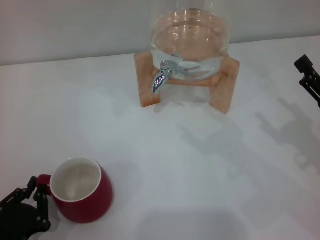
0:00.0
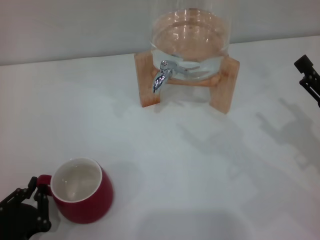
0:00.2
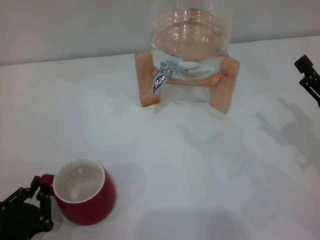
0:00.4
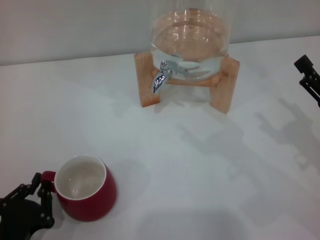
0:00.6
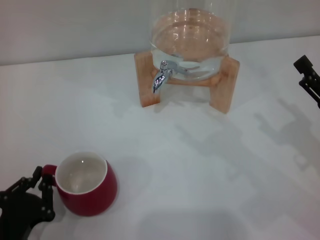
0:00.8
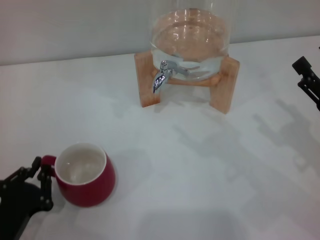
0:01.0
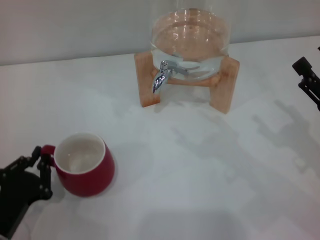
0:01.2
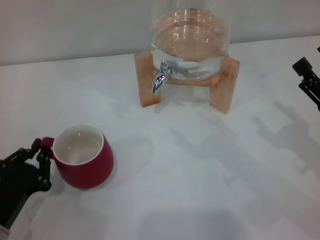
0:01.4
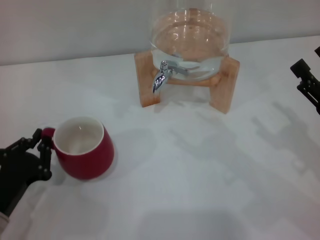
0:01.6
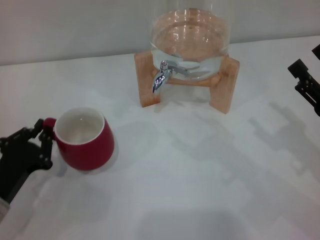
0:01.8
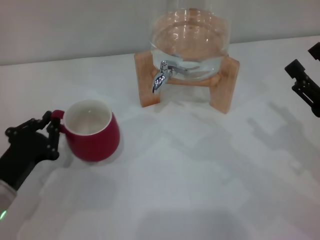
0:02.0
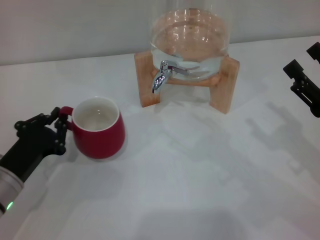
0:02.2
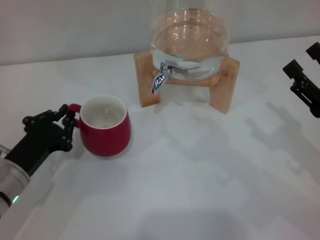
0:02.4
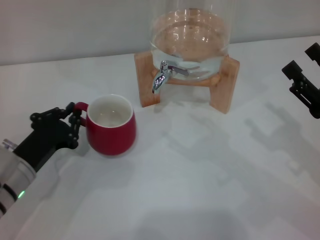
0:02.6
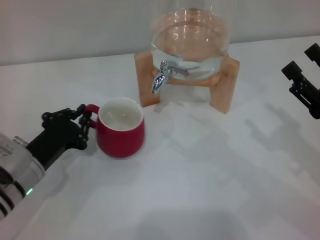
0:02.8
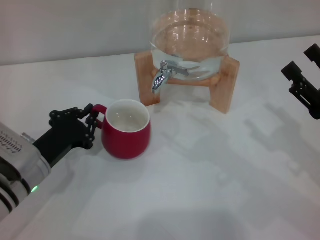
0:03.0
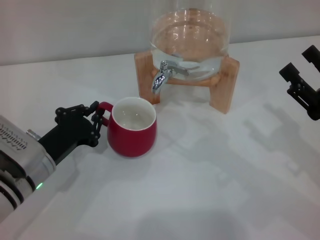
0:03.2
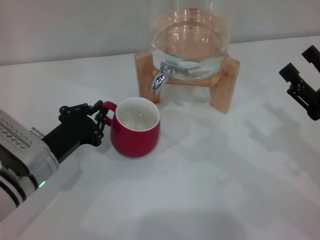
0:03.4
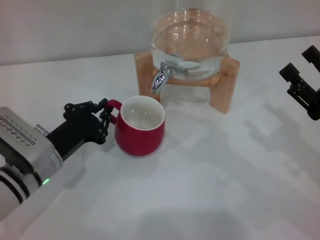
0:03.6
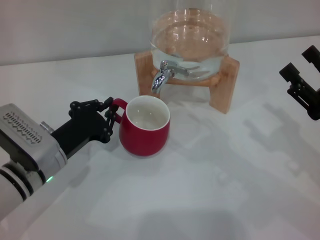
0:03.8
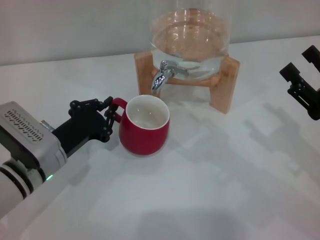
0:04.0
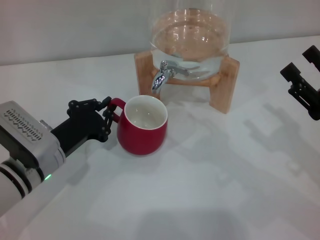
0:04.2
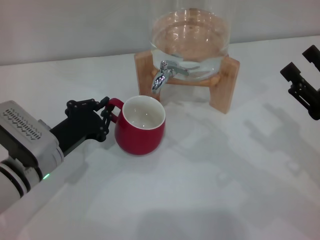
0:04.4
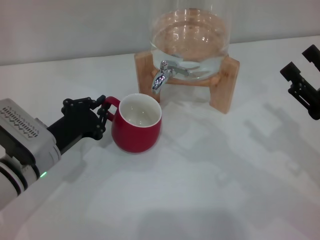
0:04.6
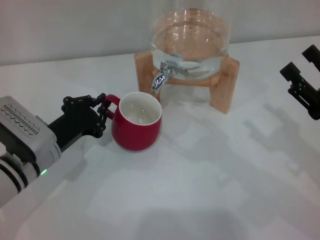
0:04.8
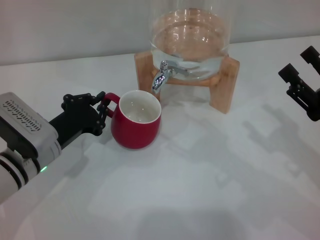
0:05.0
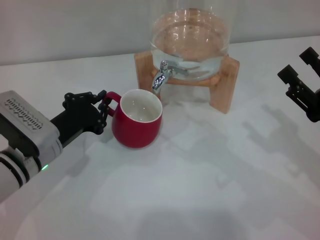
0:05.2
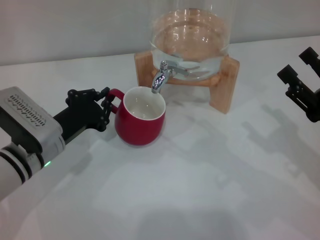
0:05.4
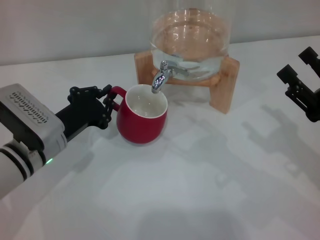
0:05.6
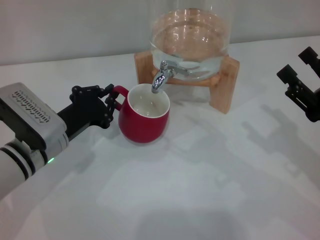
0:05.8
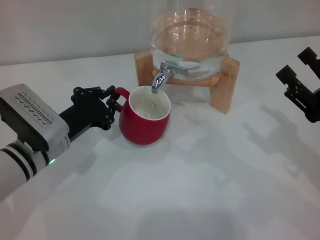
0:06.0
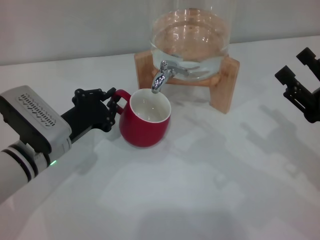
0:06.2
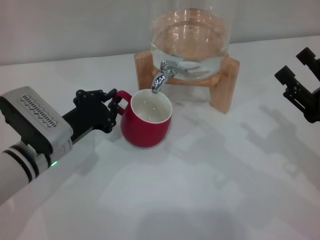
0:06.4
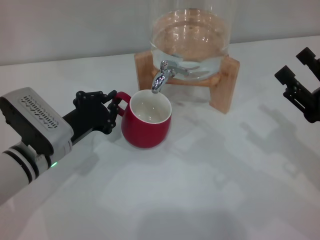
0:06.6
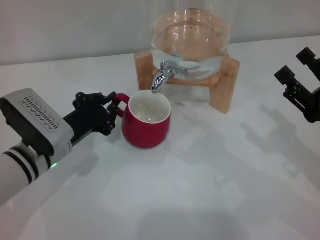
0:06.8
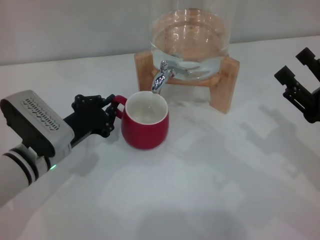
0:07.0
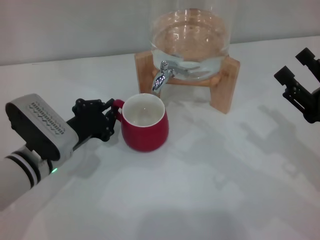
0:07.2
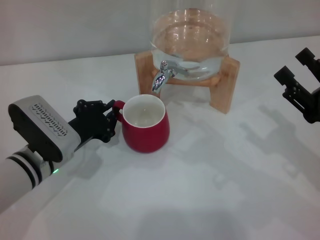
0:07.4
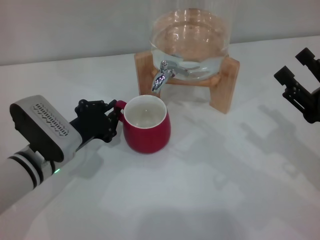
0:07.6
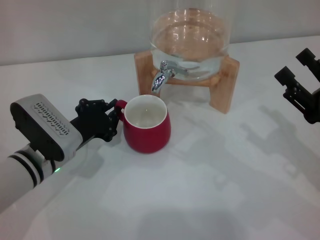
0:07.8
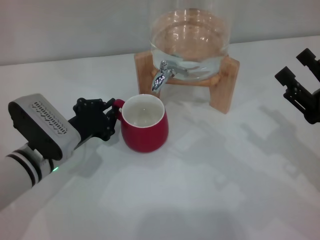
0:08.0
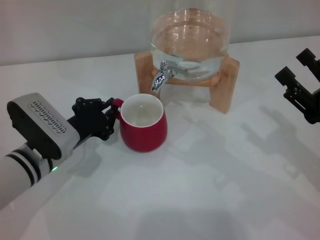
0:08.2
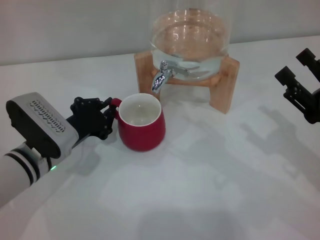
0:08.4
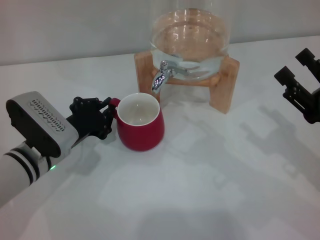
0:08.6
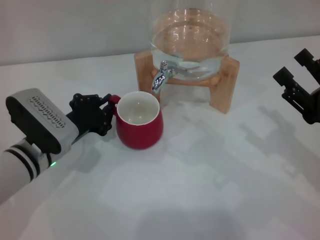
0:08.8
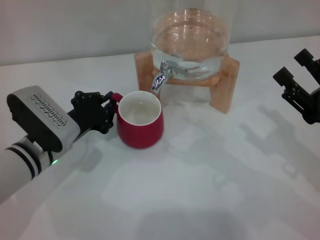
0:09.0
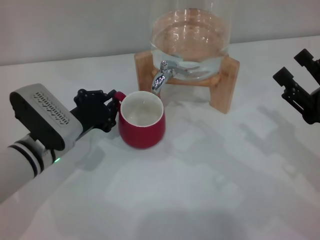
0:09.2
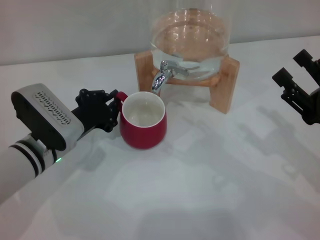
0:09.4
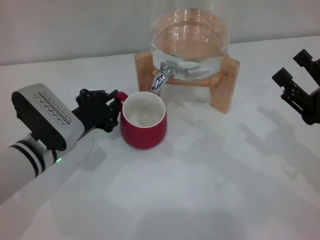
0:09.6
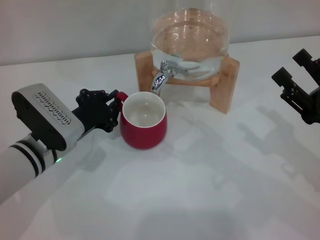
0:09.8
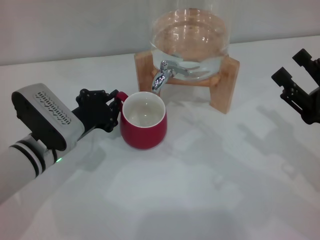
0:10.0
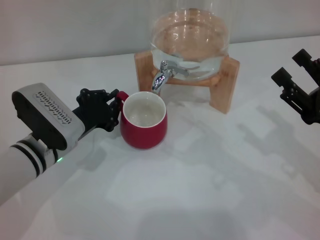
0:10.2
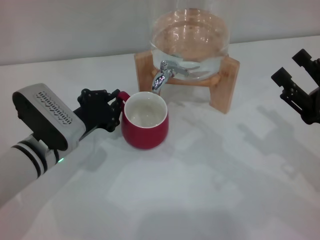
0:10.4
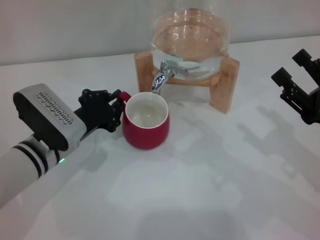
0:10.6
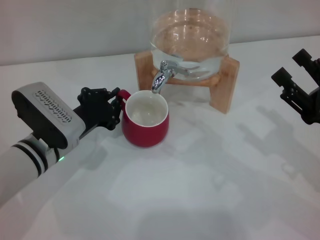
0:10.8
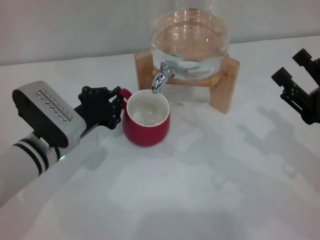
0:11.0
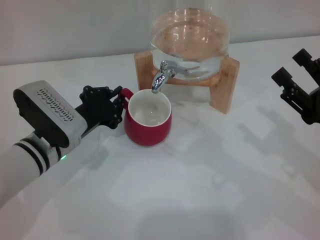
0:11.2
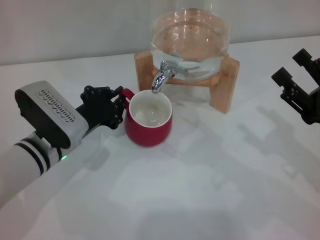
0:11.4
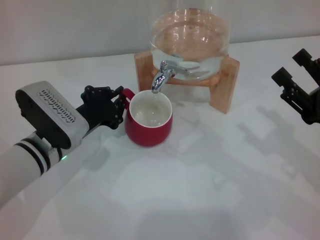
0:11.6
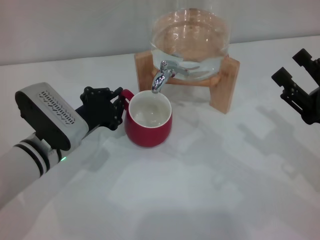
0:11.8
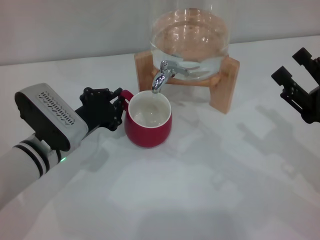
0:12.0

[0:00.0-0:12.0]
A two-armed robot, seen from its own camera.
Task of the whole recording: the left gripper pick up the red cup and place it horizontally under the faucet, the right gripper turn on the faucet to fill the cup, and then turn off the faucet.
0:00.0 to 0:01.6: The left gripper is displaced forward by about 10 cm.
0:01.6 to 0:03.0: The left gripper goes some 10 cm forward and to the right.
0:03.0 to 0:07.6: The grippers make only small movements.
0:07.6 to 0:09.0: The two grippers keep their place.
0:09.0 to 0:10.4: The two grippers keep their place.
0:10.4 to 0:12.0: Both grippers stay put.

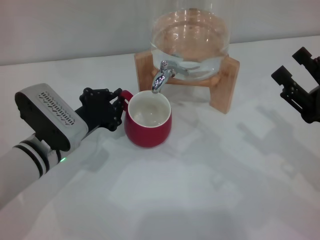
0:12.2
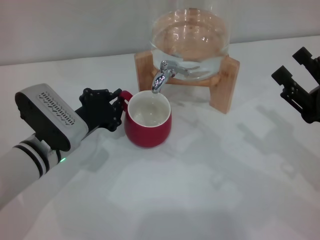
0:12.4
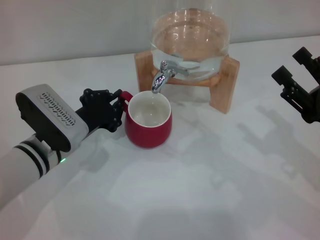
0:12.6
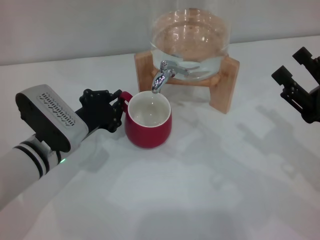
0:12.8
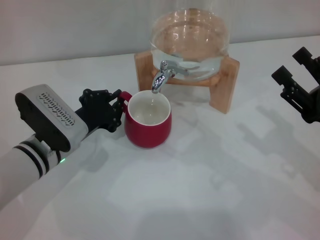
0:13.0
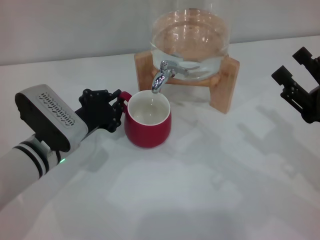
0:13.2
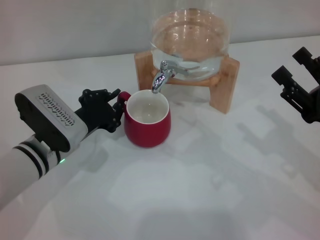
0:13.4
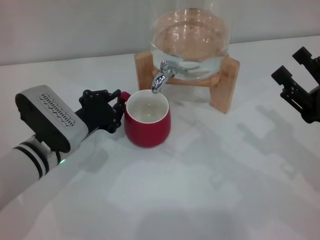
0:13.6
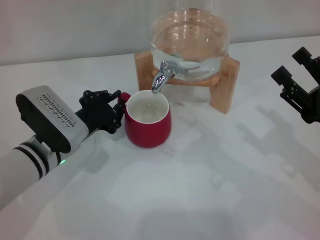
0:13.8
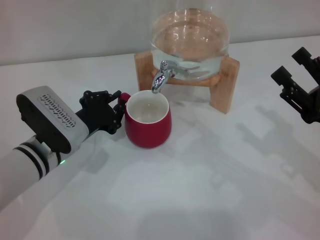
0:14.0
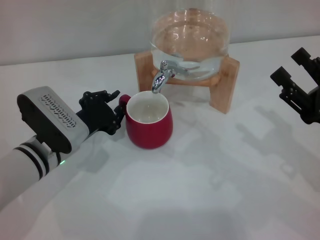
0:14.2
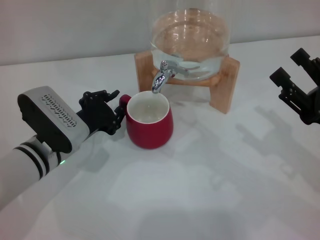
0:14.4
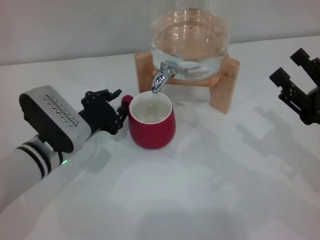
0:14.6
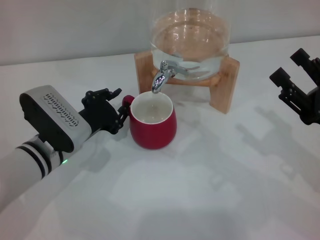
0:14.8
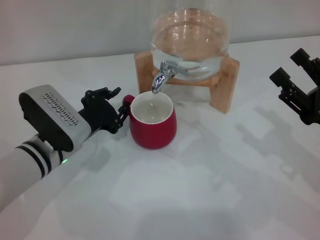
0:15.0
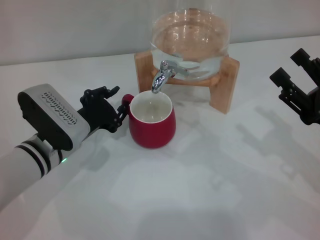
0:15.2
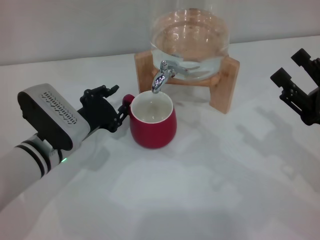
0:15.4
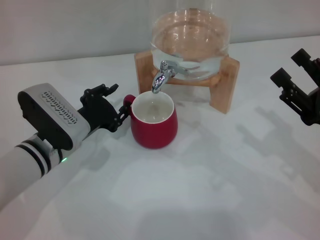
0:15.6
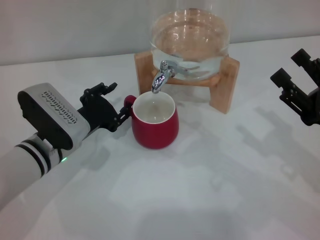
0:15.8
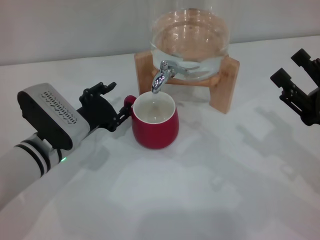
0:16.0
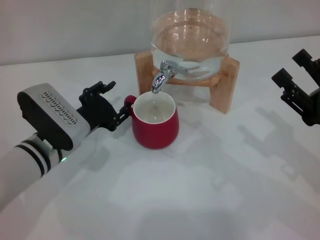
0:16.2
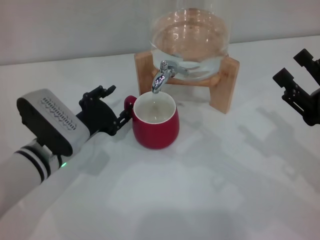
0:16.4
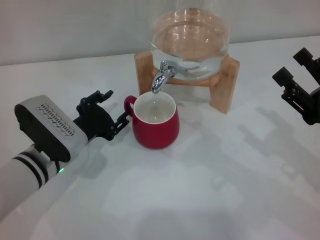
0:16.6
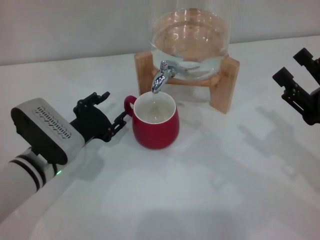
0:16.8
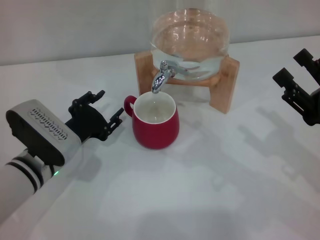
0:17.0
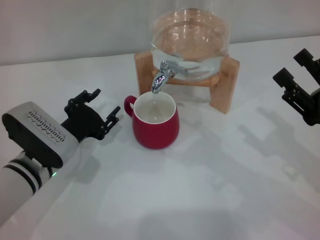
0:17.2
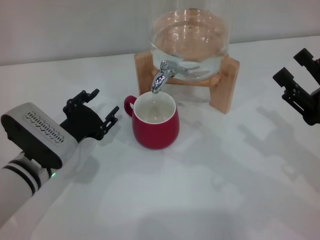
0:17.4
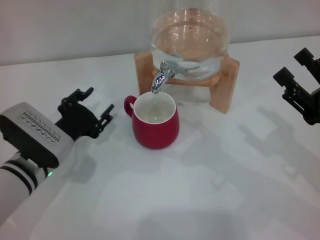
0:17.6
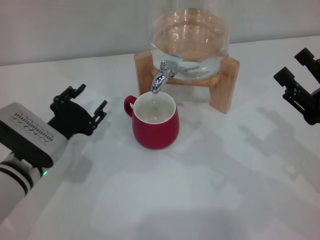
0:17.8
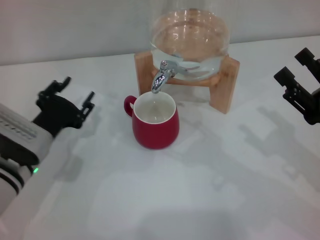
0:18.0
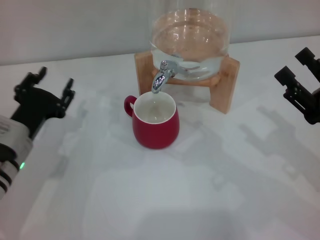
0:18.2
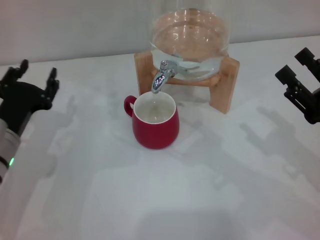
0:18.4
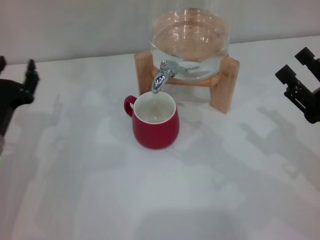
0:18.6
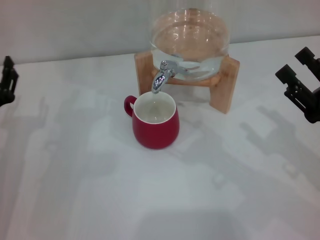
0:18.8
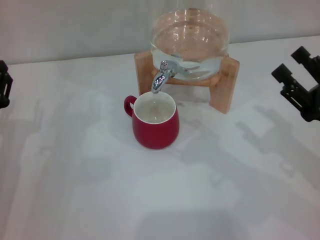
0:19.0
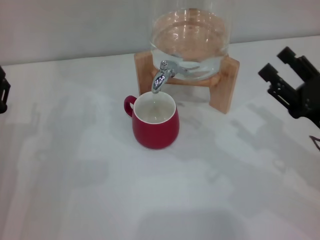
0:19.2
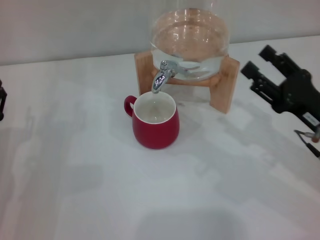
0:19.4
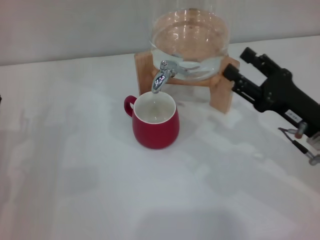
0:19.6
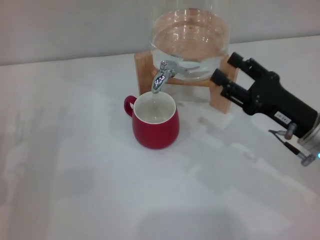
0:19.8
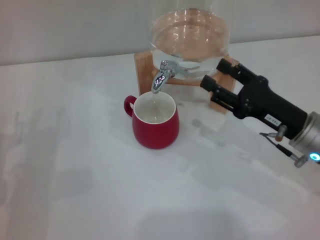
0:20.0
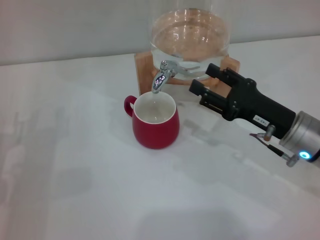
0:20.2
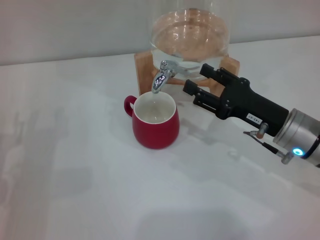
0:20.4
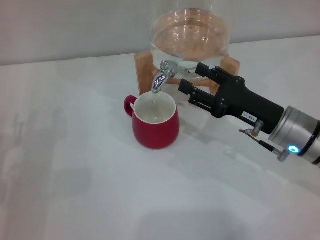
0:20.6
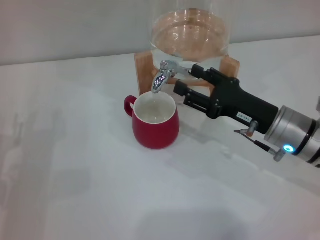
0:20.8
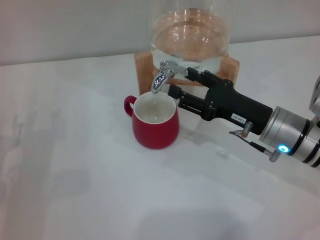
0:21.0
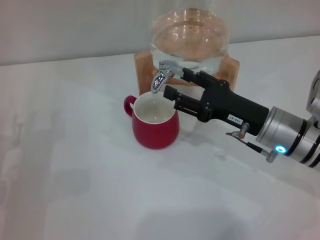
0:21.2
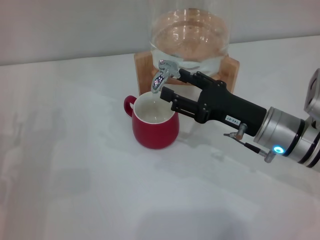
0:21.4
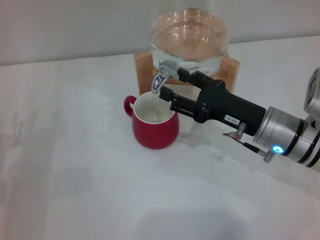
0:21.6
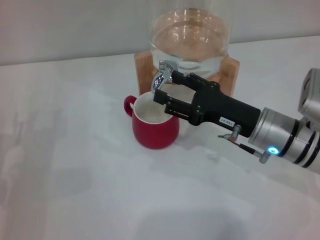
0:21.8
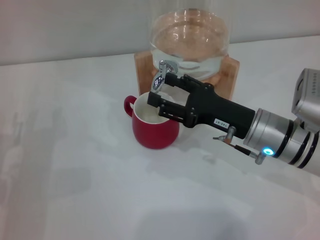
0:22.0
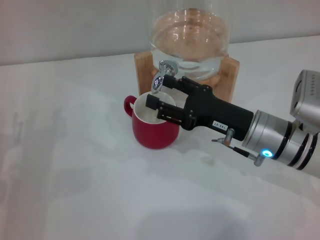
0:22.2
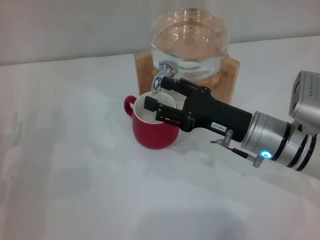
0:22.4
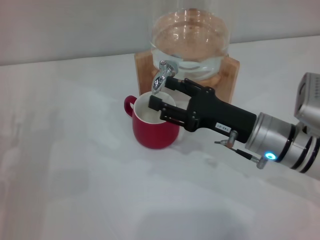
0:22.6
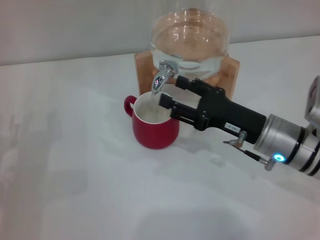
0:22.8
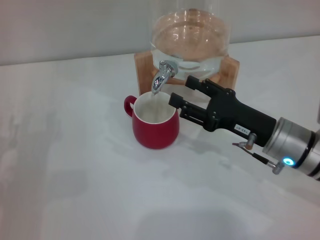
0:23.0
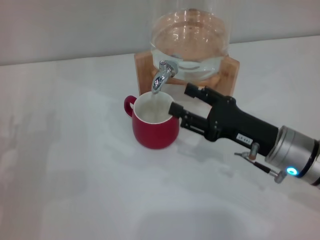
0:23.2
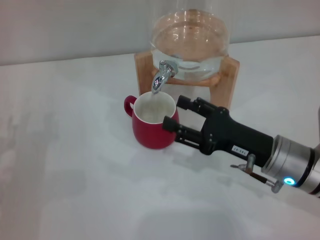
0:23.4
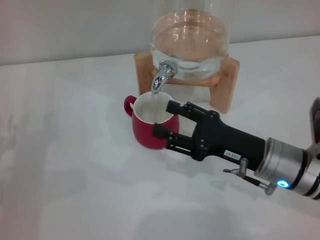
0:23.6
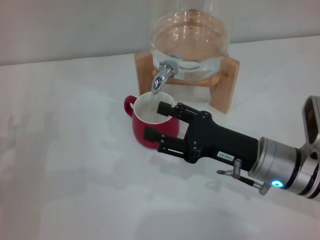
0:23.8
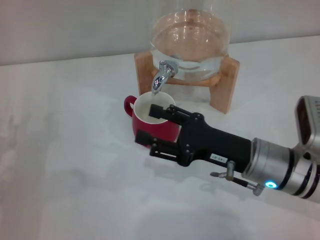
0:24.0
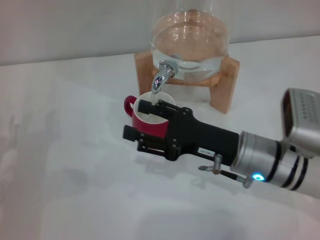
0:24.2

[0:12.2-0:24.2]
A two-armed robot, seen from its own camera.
Task of the whole recording: the left gripper pick up the red cup and place it horizontally under the faucet, the right gripper turn on the faucet to fill the cup, and then turn off the faucet.
Step, 0:12.2 to 0:17.0: Move the cup beneath the water dispenser nozzle with the left gripper.
Step, 0:17.2 to 0:22.6: Open the dispenser valve and fill the cup with water with the right gripper.
0:12.2 to 0:15.2: Neither gripper changes place.
0:15.2 to 0:16.6: There are only small adjustments of the grippers.
0:16.6 to 0:18.2: The left gripper heads to the left, covering some 5 cm.
0:18.2 to 0:19.8: The left gripper is displaced to the left by approximately 5 cm. Meanwhile the right gripper moves forward, roughly 5 cm.
0:19.8 to 0:21.2: The right gripper changes place by some 5 cm.
0:21.2 to 0:24.2: There are only small adjustments of the grippers.
